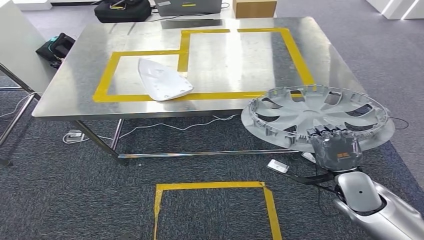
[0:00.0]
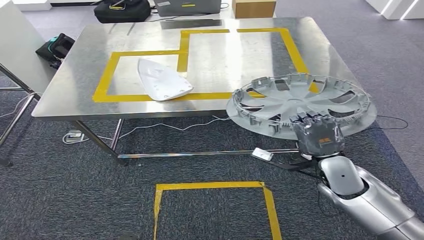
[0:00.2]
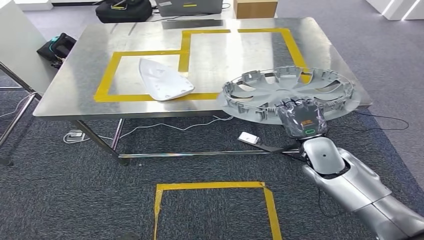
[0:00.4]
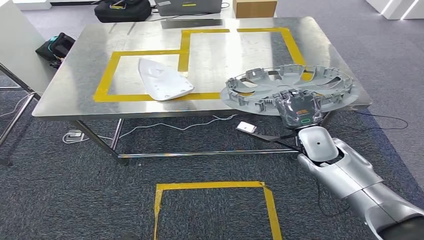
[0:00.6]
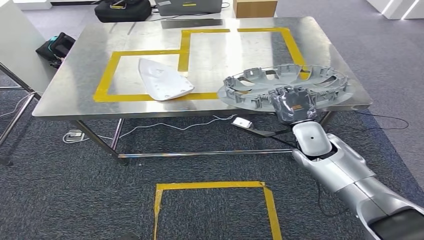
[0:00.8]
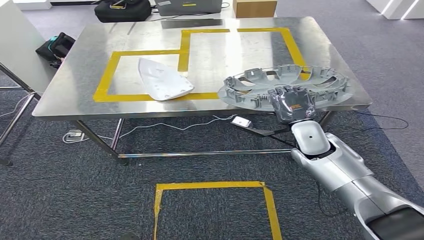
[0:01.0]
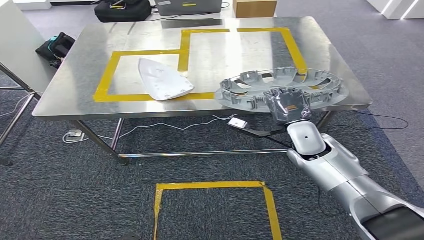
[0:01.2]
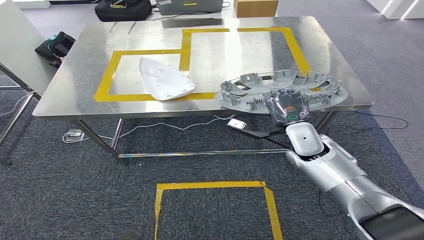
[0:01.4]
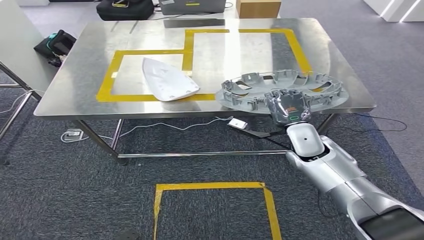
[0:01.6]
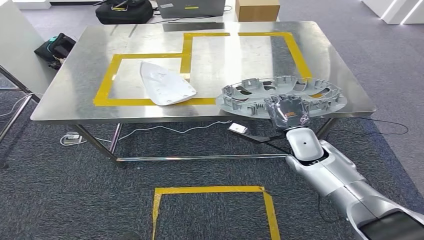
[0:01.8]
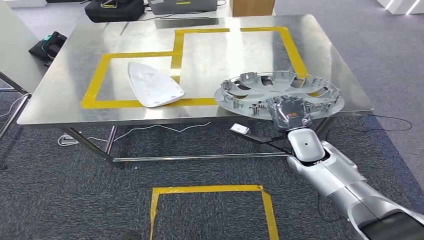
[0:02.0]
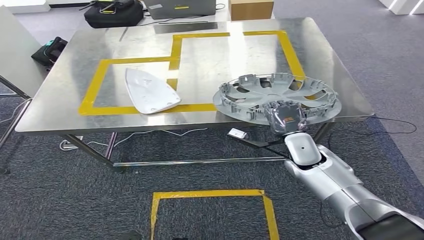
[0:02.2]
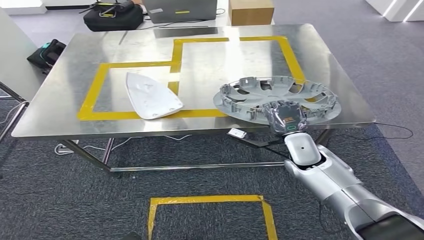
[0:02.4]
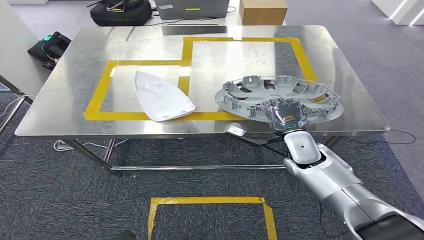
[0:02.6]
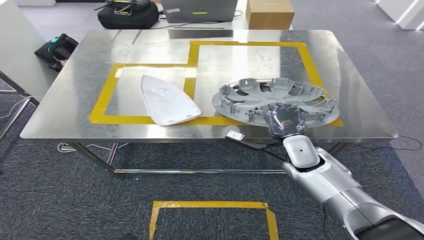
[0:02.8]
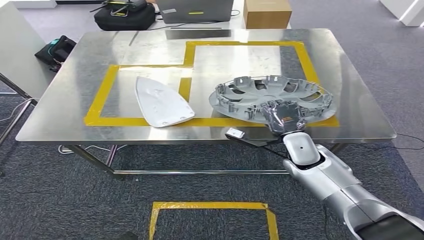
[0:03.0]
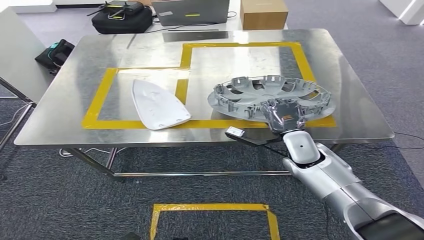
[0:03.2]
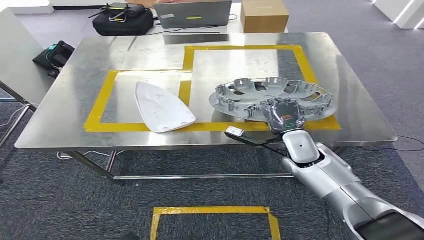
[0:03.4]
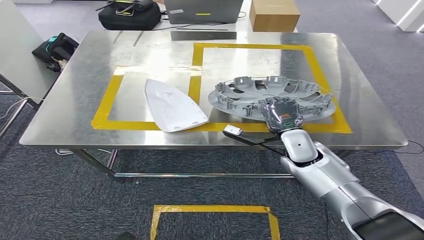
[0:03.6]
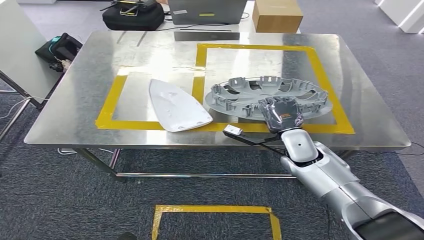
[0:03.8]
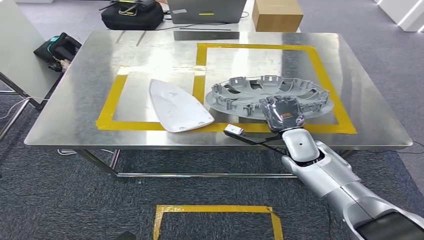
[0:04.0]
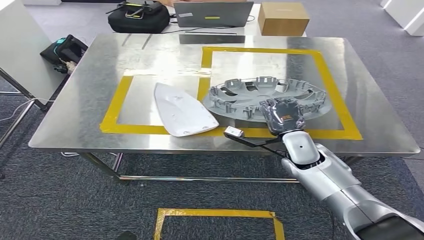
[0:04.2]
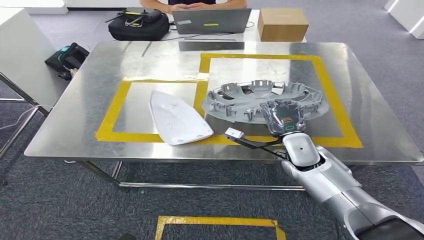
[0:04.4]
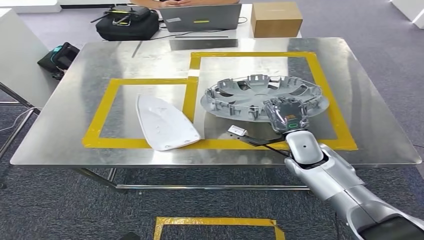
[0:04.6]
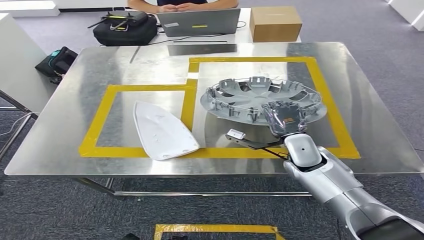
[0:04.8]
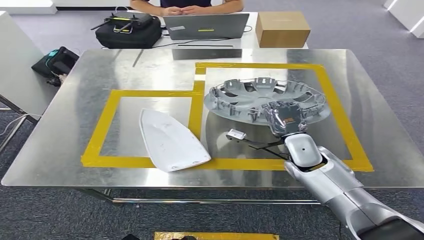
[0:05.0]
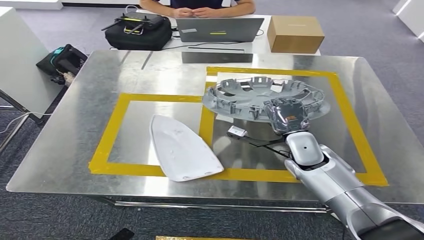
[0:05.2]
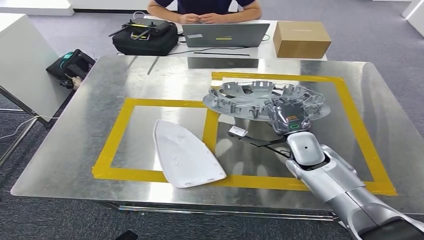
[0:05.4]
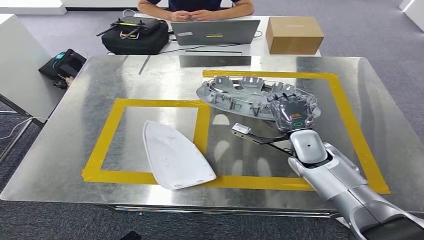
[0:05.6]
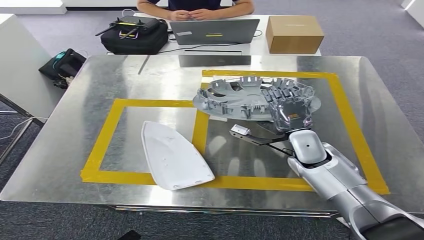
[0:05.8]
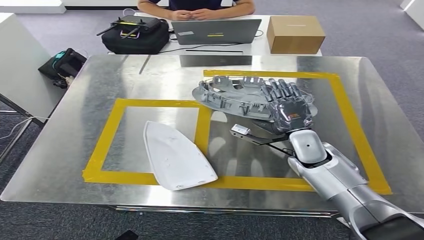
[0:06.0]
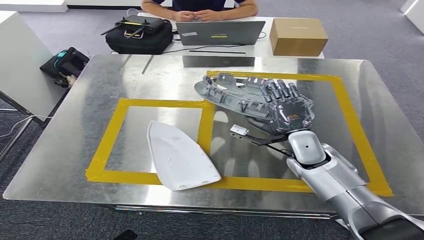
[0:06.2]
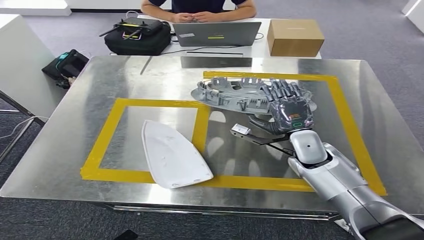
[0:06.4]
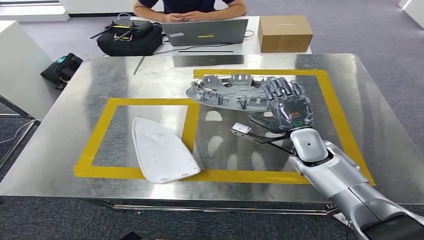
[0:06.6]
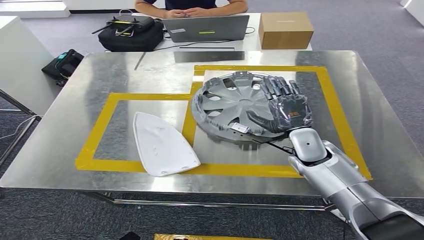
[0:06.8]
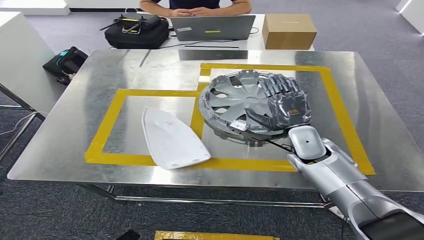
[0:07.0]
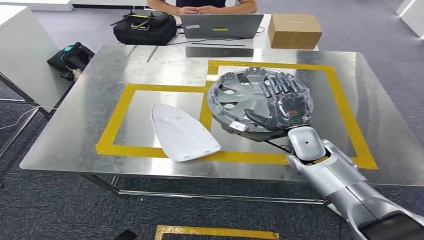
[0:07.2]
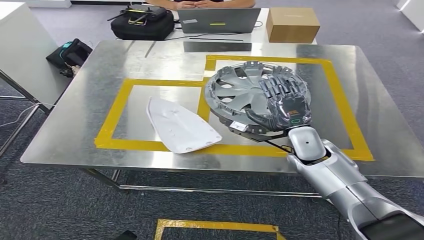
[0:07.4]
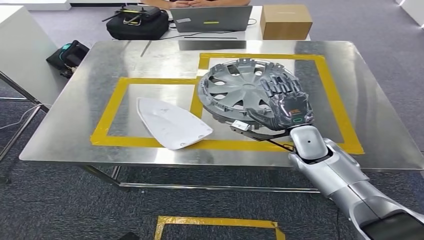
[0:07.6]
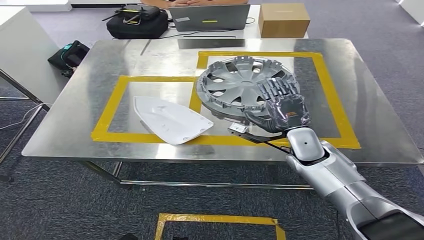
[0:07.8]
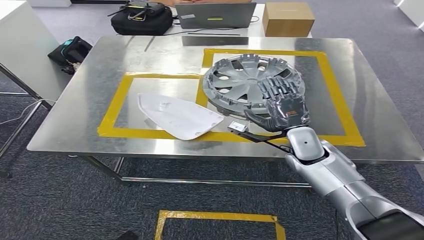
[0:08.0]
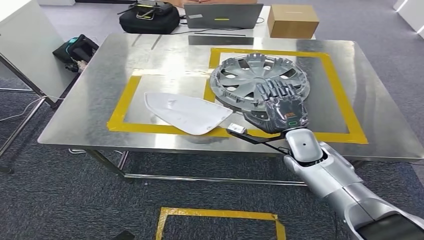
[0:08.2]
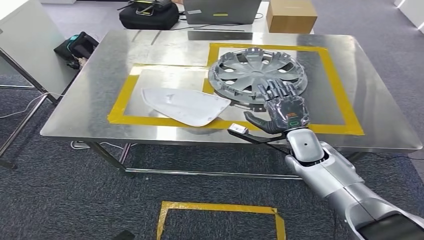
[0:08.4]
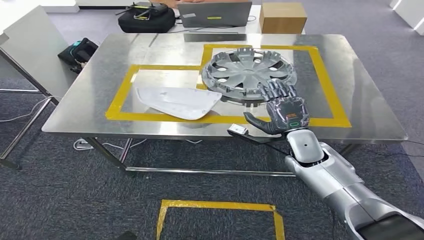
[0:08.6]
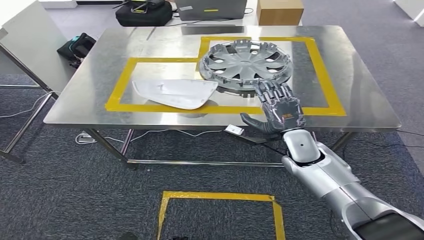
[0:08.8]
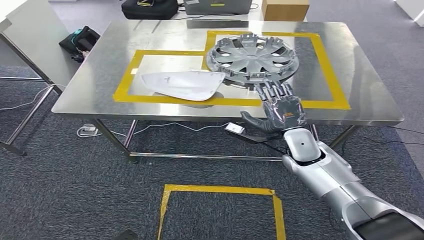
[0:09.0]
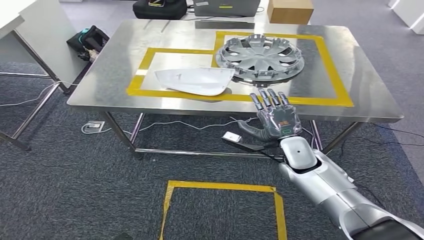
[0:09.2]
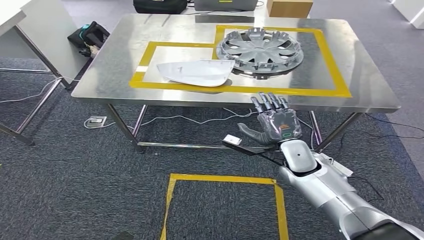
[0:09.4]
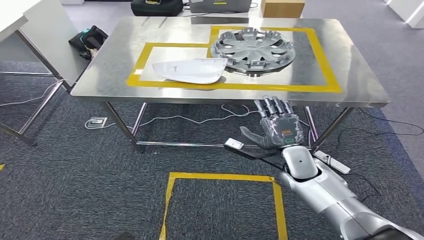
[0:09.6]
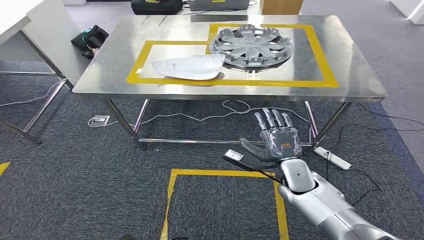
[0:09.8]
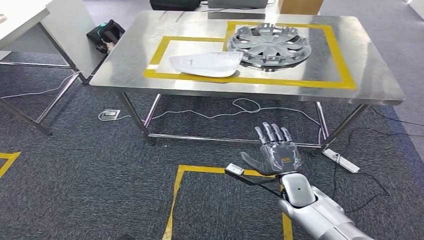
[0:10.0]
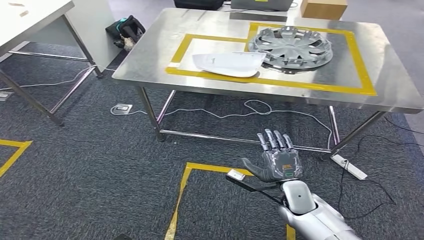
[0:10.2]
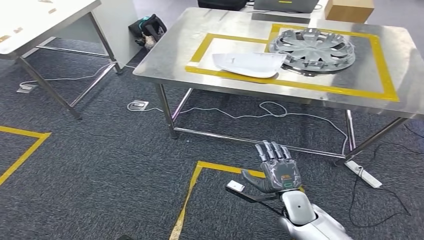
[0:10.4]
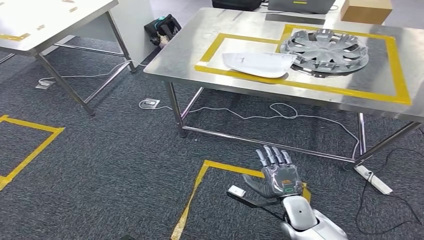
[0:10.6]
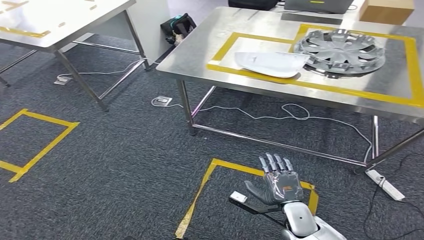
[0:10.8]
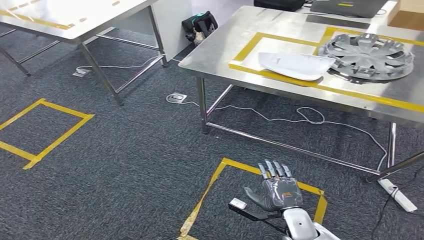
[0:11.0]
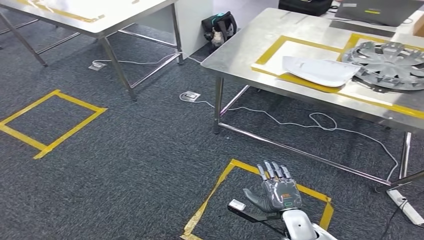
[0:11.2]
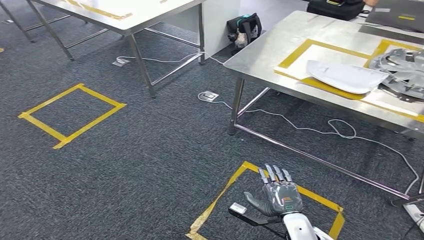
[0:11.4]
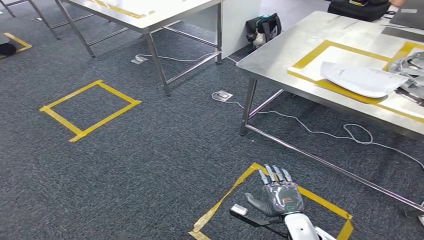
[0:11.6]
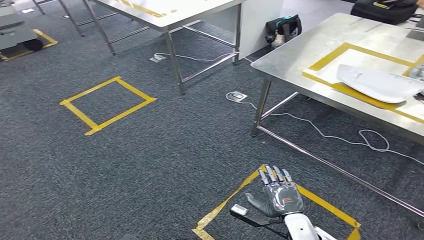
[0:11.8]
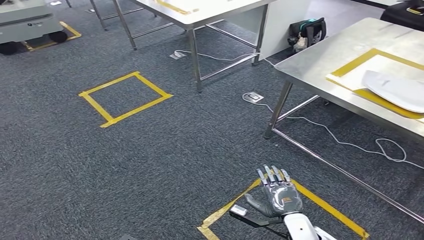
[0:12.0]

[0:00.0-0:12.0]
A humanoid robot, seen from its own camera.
Step, 0:00.0 to 0:09.2: Insert the small component into the corresponding slot on the workbench.
0:00.0 to 0:01.6: The right hand heads forward and to the left, covering roughly 15 cm.

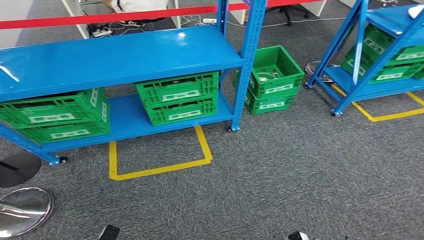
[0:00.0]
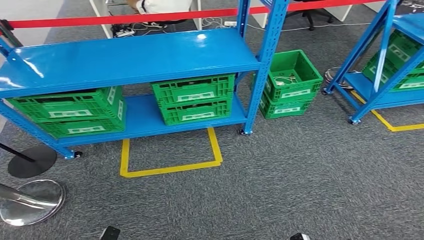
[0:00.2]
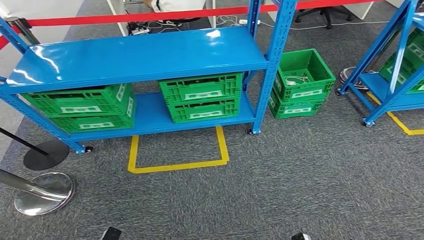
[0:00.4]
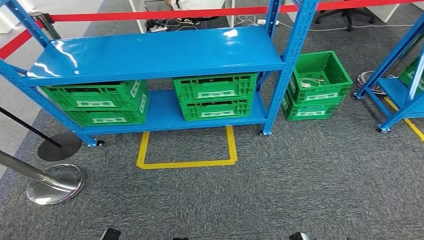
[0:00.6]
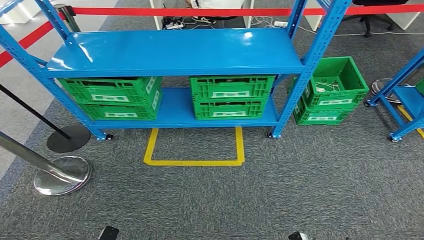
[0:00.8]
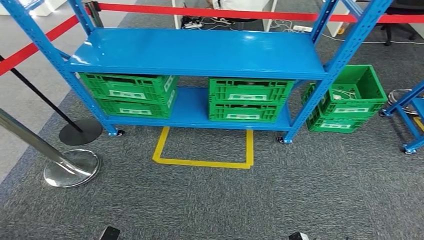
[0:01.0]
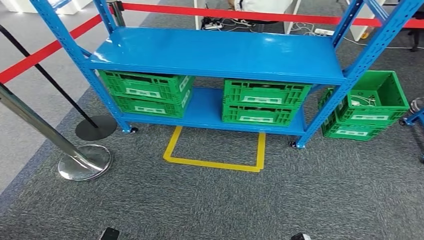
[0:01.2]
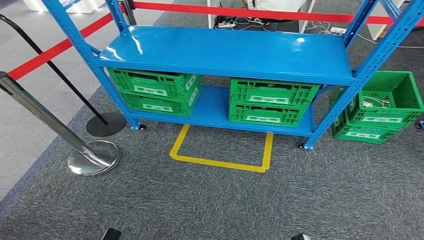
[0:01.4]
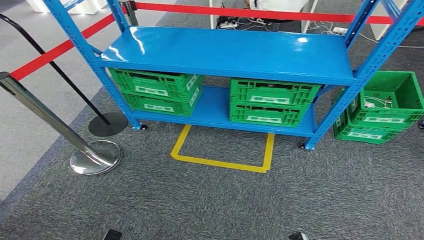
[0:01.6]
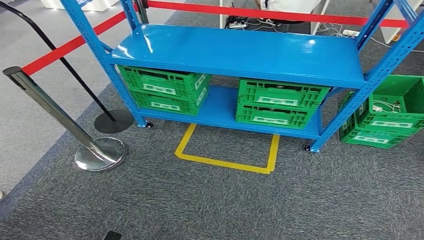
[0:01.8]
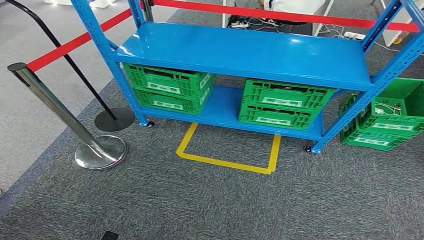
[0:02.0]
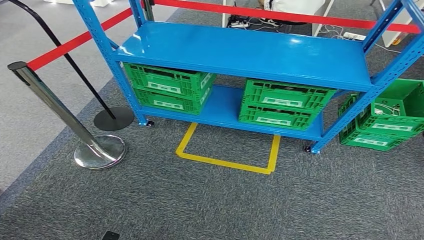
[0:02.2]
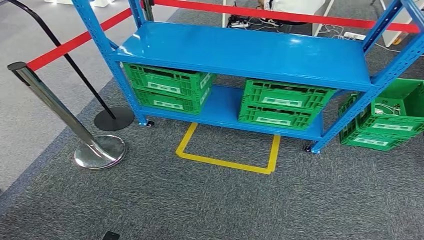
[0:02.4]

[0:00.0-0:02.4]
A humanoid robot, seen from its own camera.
Step, 0:00.0 to 0:02.2: Return to the initial position at the workbench.
